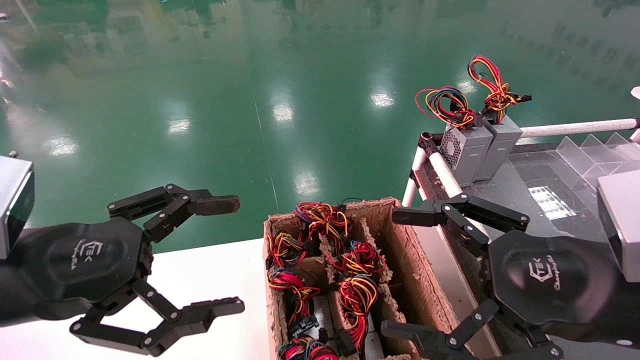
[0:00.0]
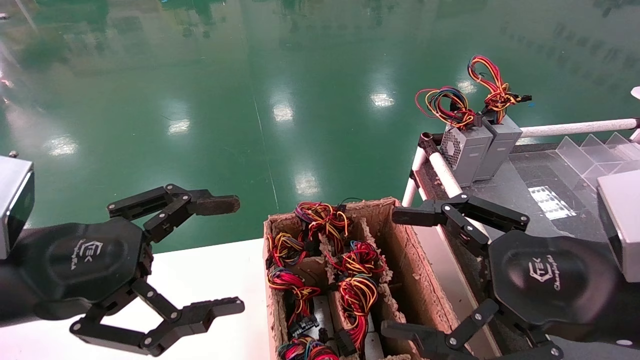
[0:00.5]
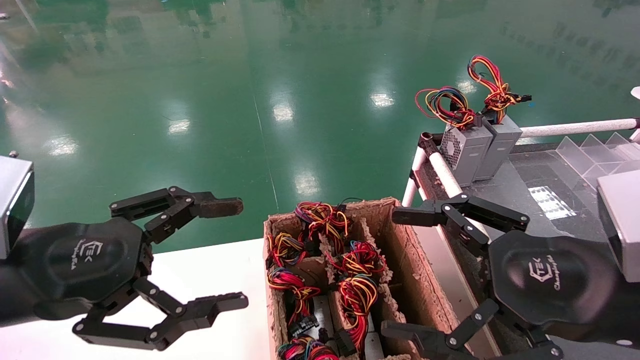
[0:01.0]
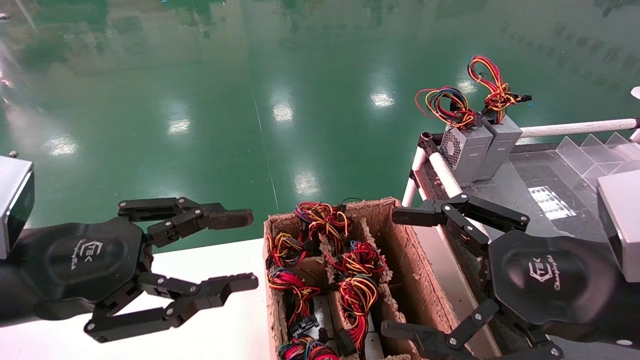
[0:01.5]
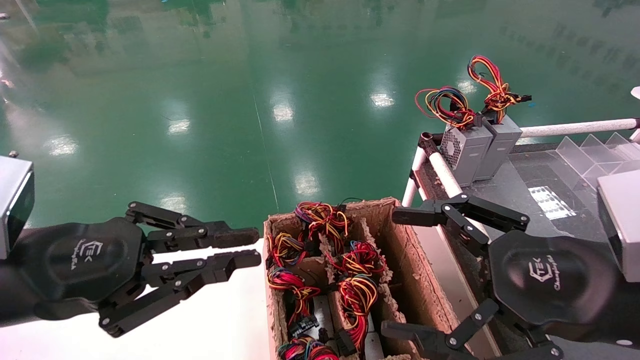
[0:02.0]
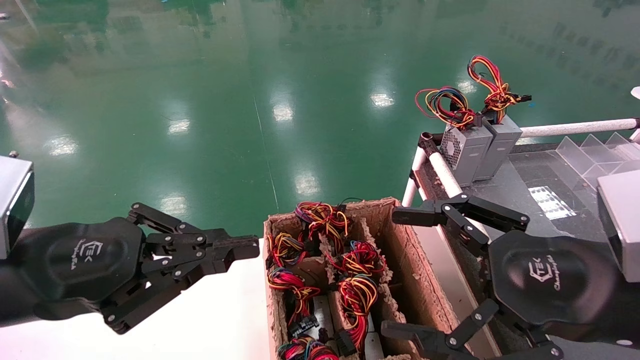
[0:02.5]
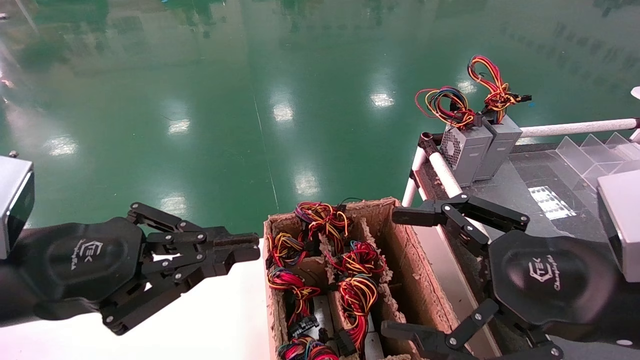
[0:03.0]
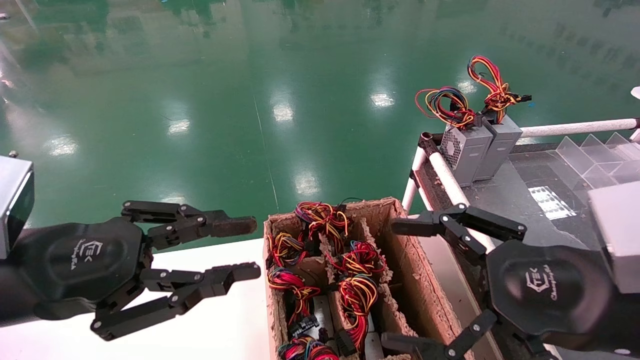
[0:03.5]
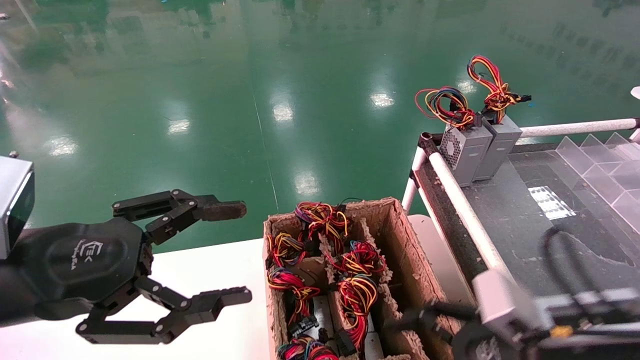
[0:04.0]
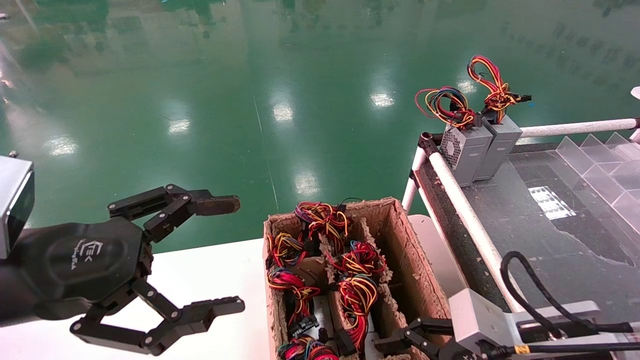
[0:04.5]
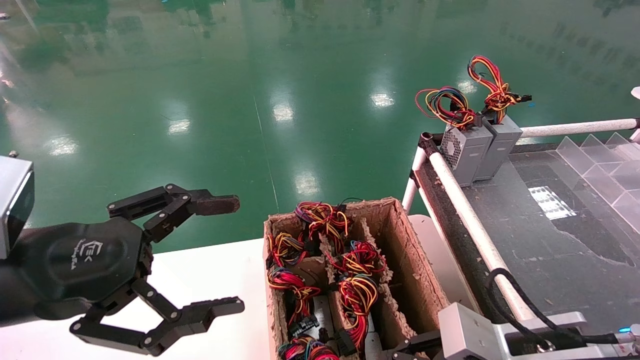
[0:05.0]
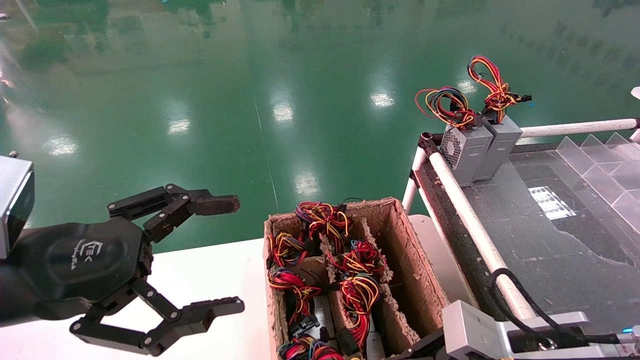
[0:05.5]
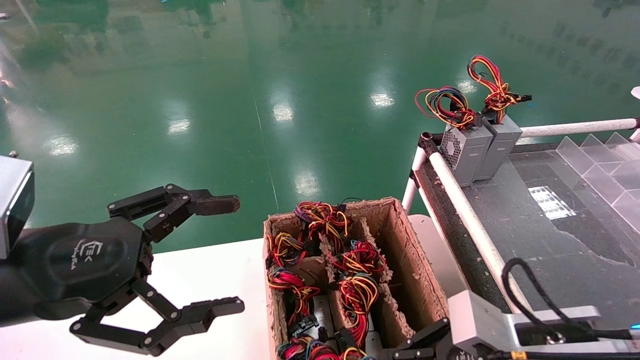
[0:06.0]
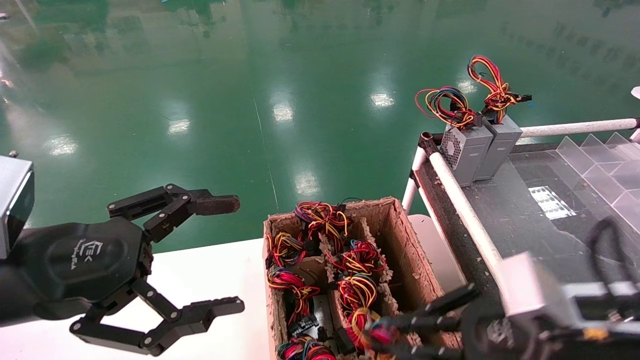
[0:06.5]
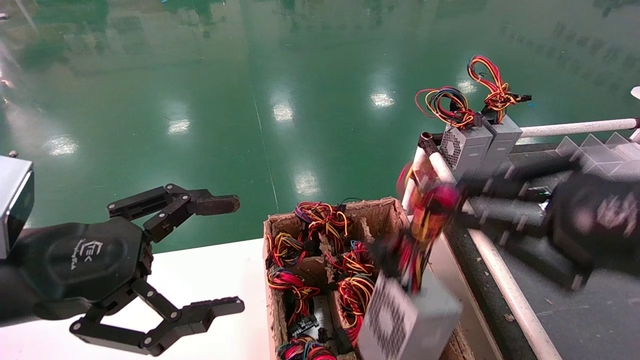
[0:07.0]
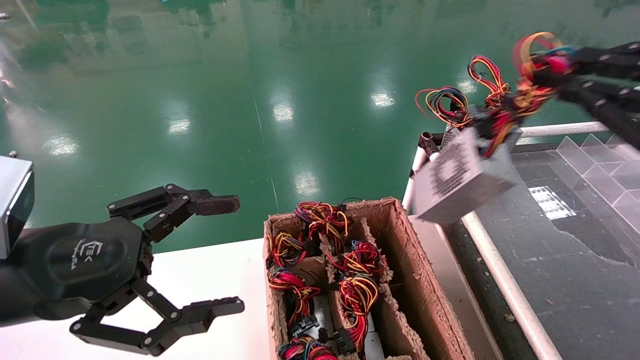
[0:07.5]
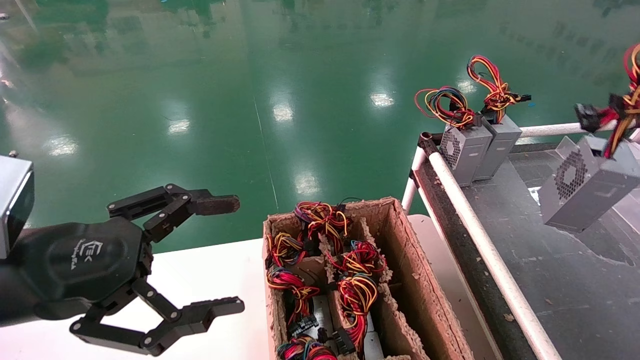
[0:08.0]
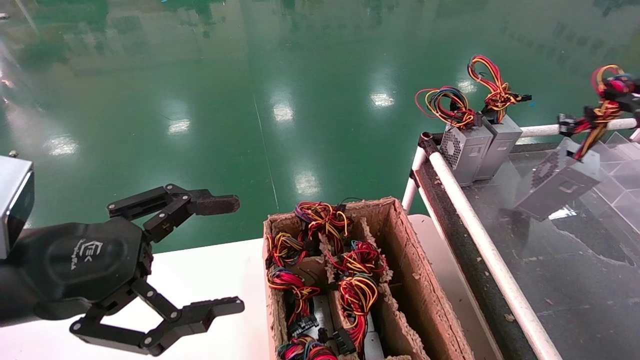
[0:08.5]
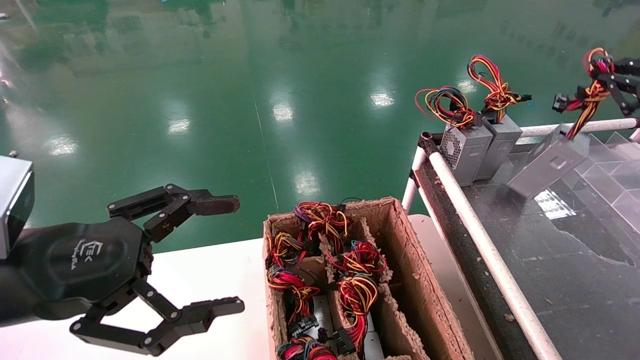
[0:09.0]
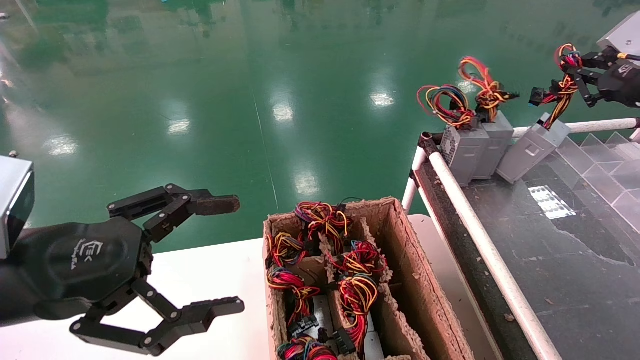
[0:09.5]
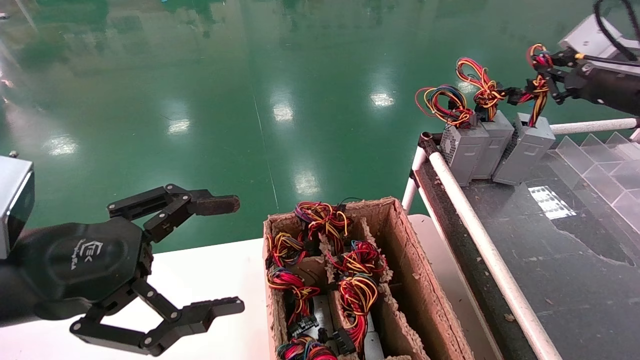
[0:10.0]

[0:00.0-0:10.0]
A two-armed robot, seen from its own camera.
Step, 0:02.5 to 0:05.5: Grab and lift the power supply from the large box.
0:00.0 to 0:02.0: The left gripper closes.
0:02.0 to 0:04.0: The right gripper is displaced downward by roughly 5 cm. Meanwhile the left gripper opens.
0:04.0 to 0:06.0: The right gripper closes its fingers.
0:06.0 to 0:08.0: The right gripper goes roughly 30 cm to the right and upward.
0:08.0 to 0:10.0: The right gripper moves forward, roughly 20 cm.

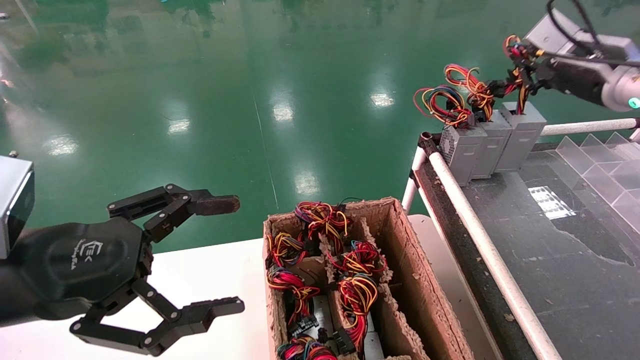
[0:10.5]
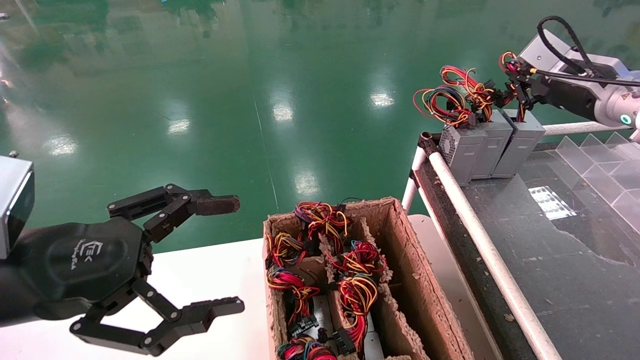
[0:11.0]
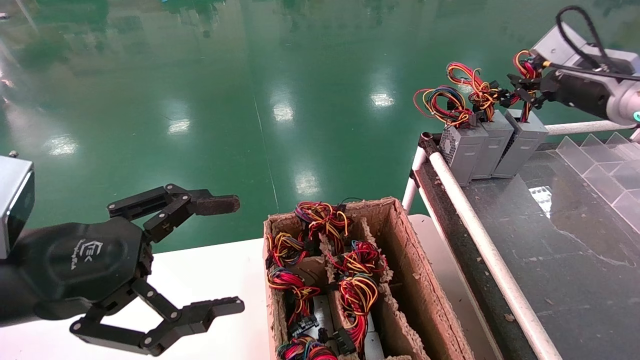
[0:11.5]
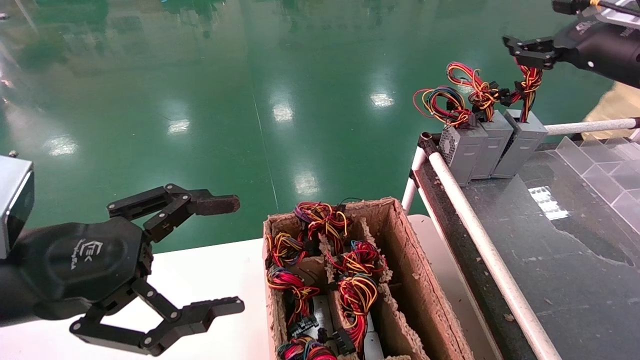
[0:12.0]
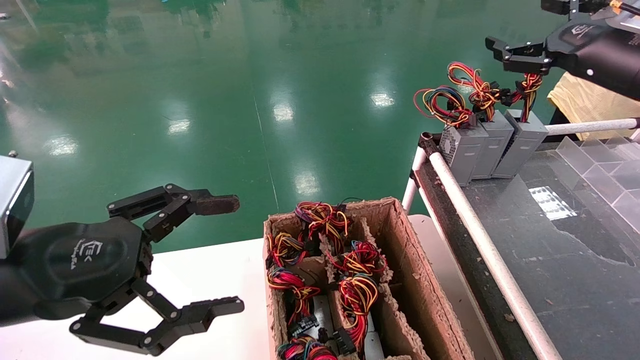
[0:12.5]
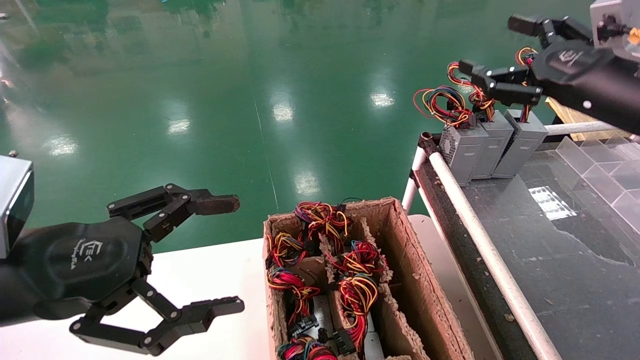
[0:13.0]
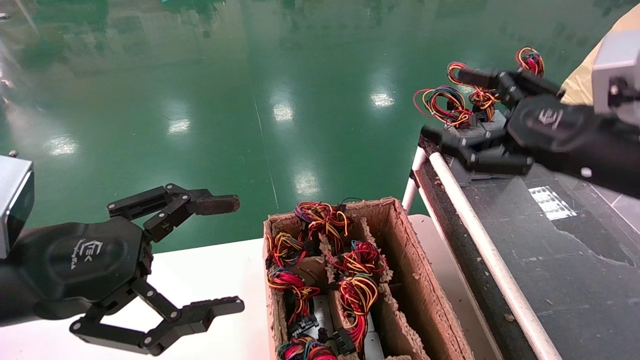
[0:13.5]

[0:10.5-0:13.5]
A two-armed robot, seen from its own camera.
0:10.5 to 0:12.0: The right gripper opens.
0:12.0 to 0:13.5: The right gripper moves backward, downward and to the left, about 15 cm, and opens up.

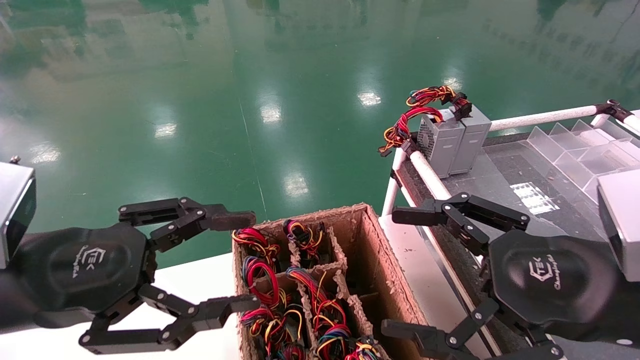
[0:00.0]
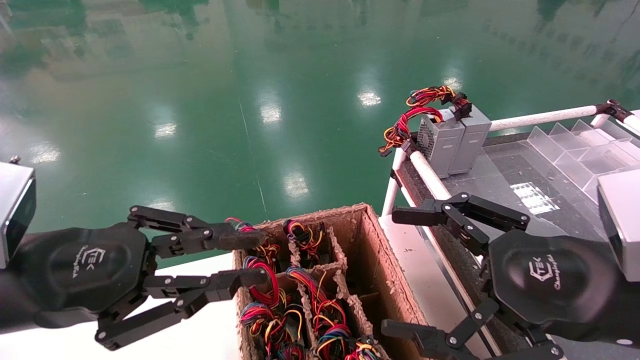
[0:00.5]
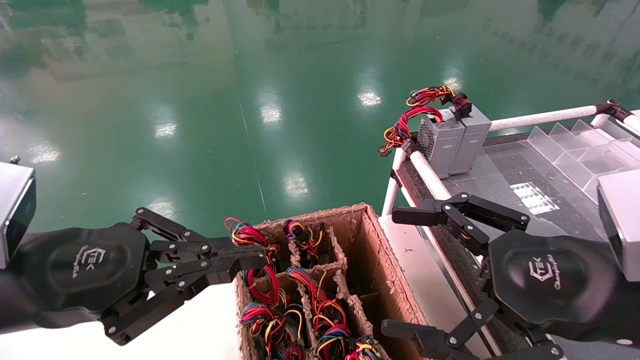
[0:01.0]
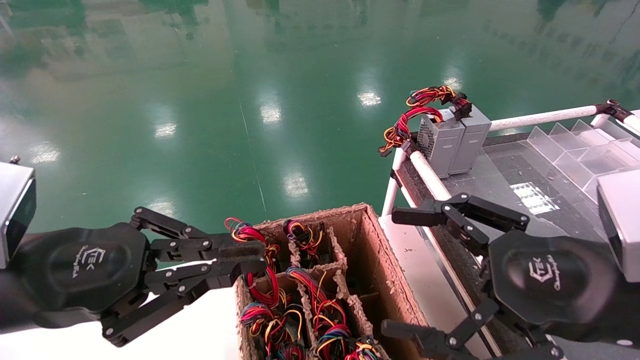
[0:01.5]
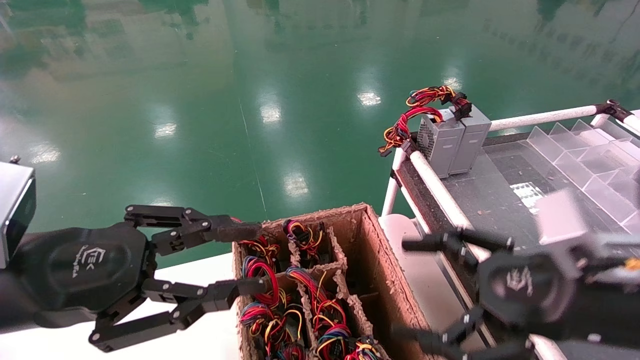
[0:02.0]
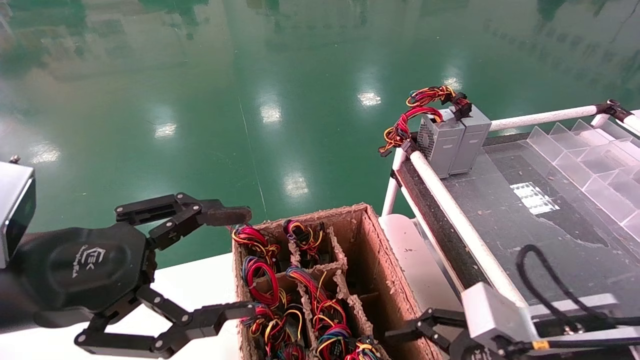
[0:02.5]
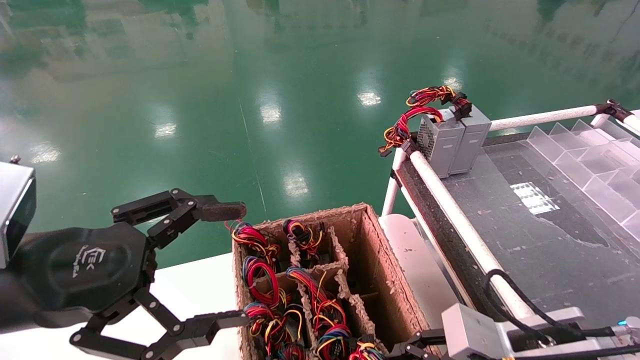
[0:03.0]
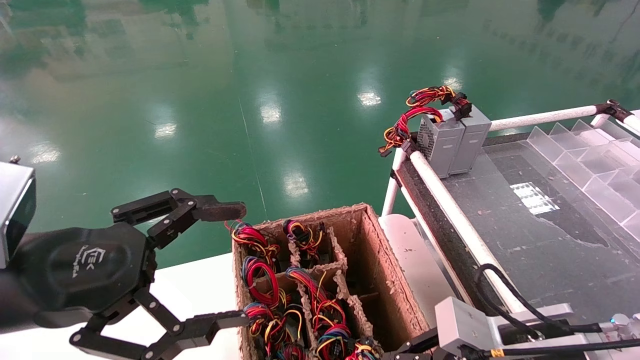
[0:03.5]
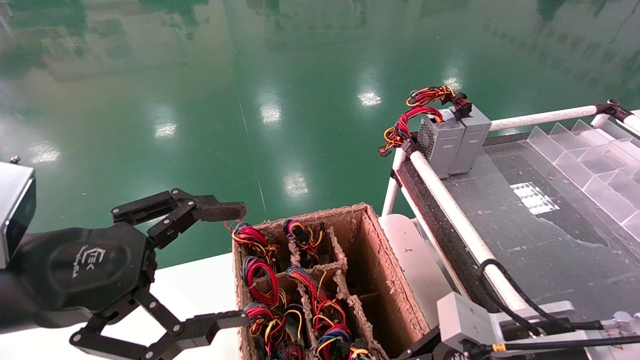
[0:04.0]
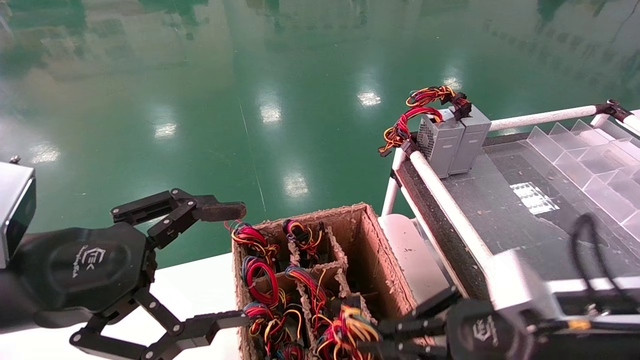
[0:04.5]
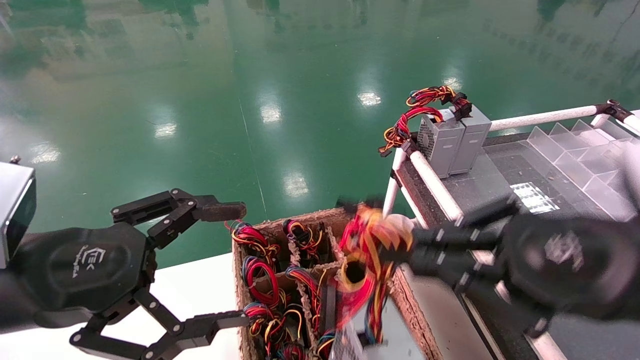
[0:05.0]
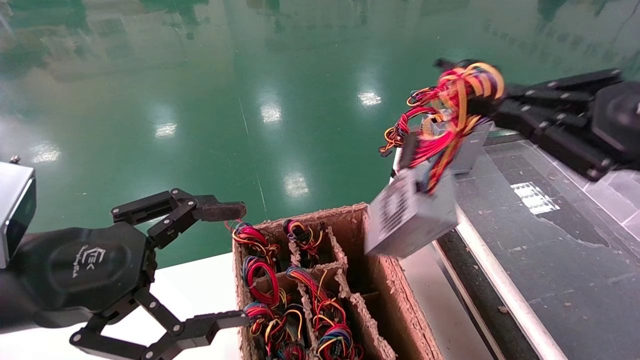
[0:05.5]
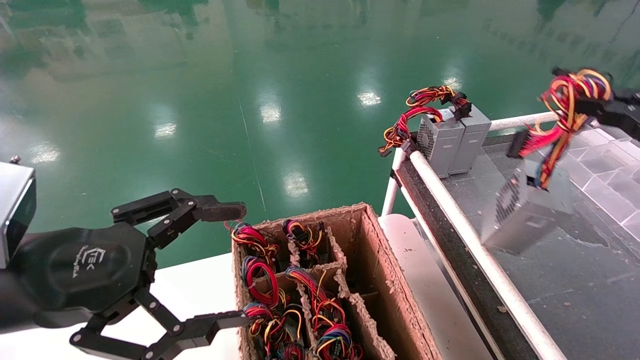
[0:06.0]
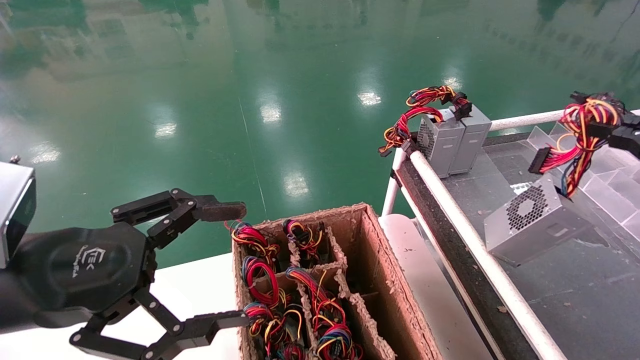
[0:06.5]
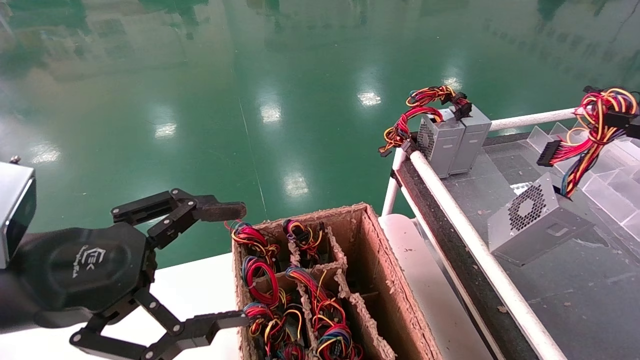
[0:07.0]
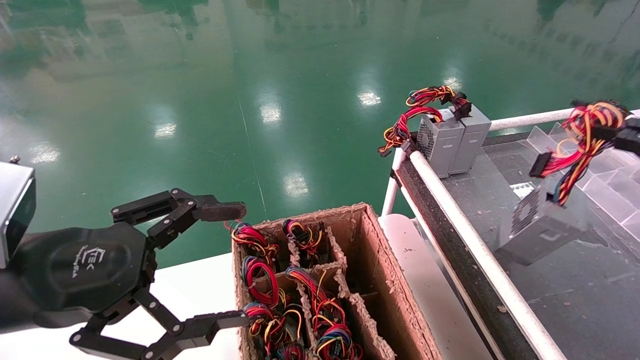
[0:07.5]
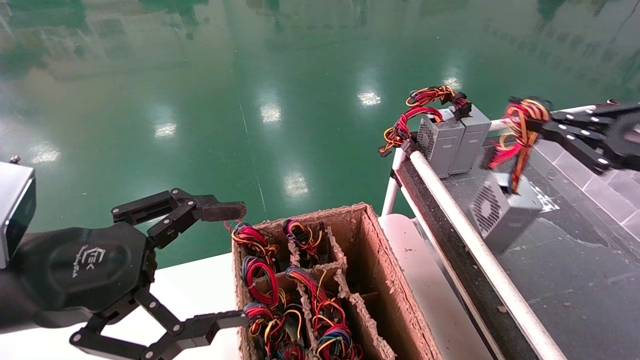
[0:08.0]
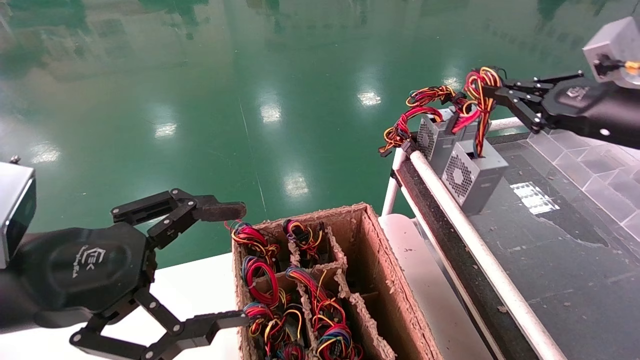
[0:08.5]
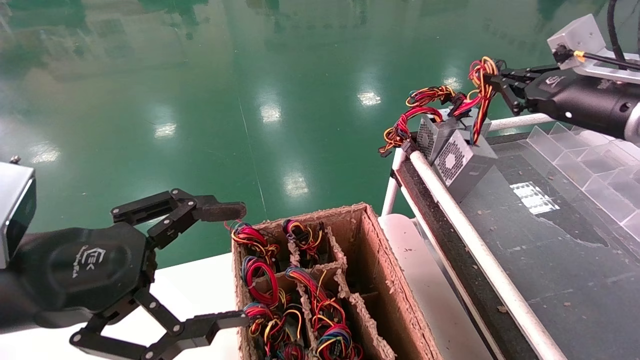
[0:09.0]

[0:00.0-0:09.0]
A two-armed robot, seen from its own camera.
Step, 0:01.5 to 0:04.0: Grab and lift the power supply from the large box.
0:00.0 to 0:02.0: The left gripper closes its fingers.
0:02.0 to 0:04.5: The left gripper opens its fingers; the right gripper reaches approximately 10 cm downward, then returns, and closes.
0:04.5 to 0:07.0: The right gripper heads to the right and upward, covering some 25 cm.
0:07.0 to 0:09.0: The right gripper is displaced forward and to the left by roughly 20 cm.
